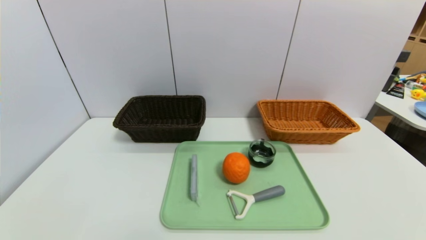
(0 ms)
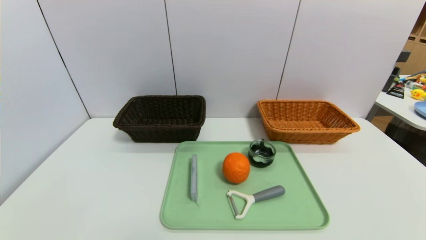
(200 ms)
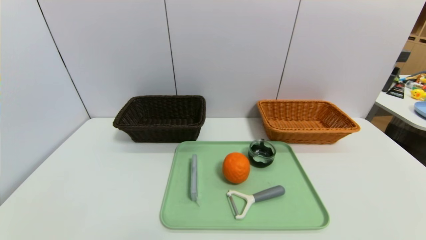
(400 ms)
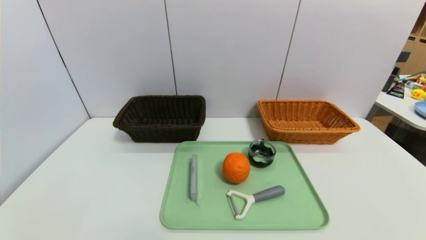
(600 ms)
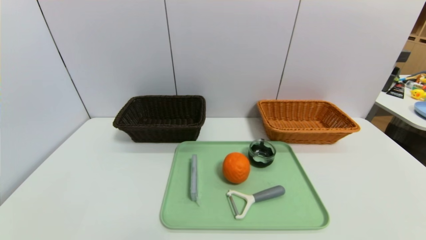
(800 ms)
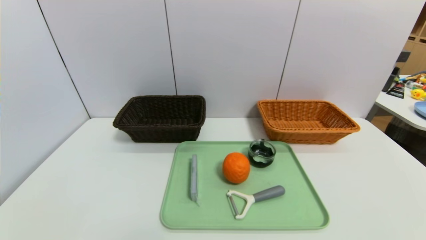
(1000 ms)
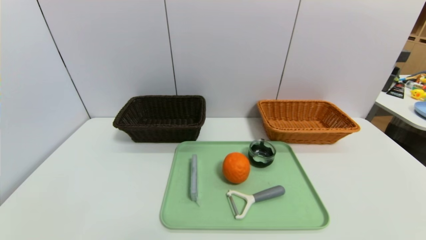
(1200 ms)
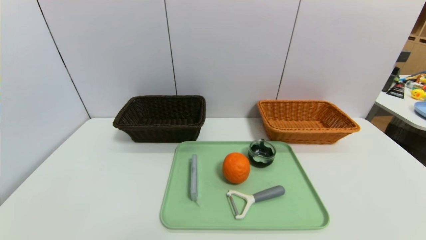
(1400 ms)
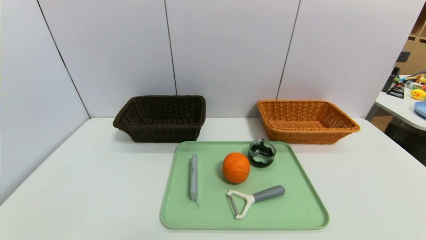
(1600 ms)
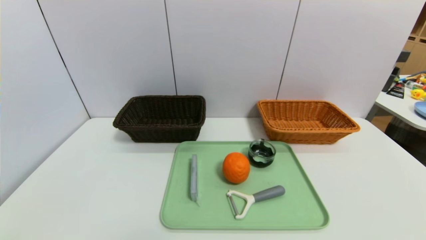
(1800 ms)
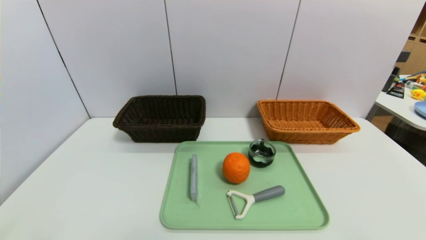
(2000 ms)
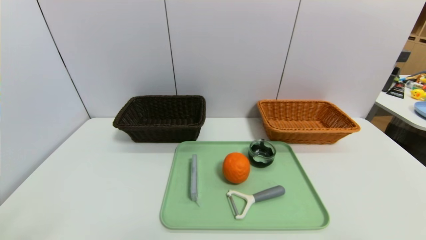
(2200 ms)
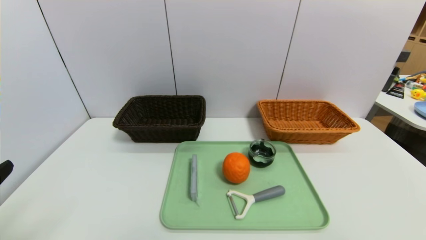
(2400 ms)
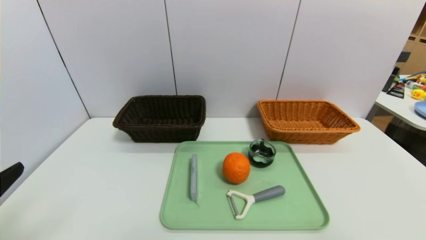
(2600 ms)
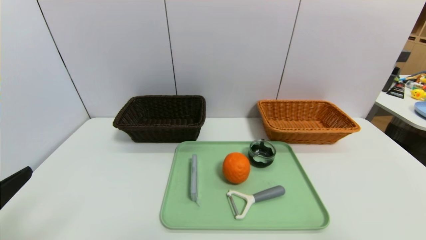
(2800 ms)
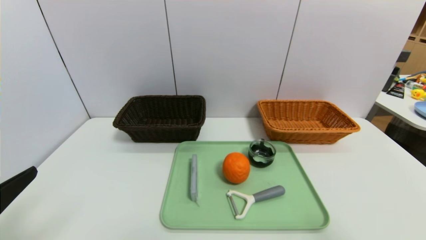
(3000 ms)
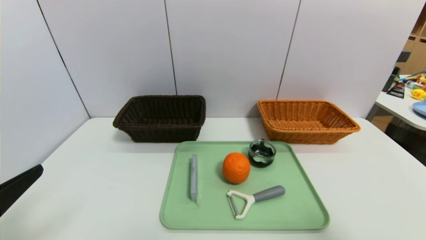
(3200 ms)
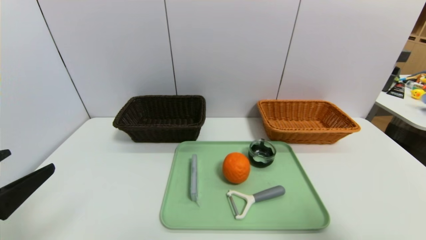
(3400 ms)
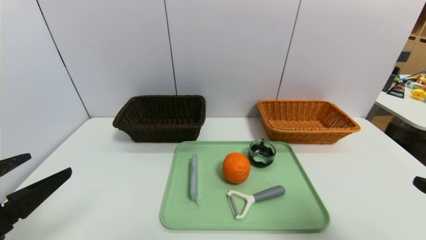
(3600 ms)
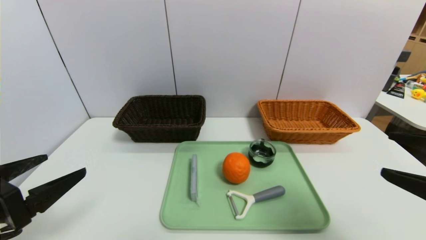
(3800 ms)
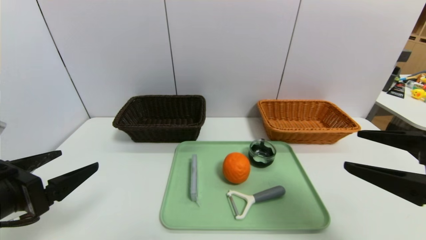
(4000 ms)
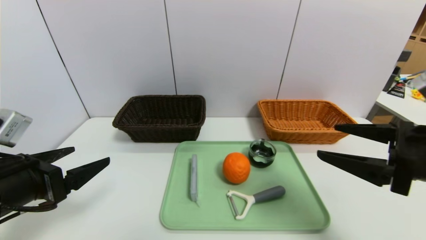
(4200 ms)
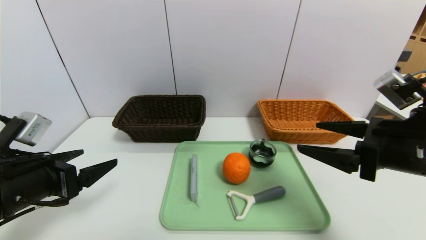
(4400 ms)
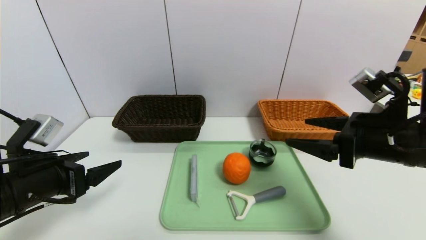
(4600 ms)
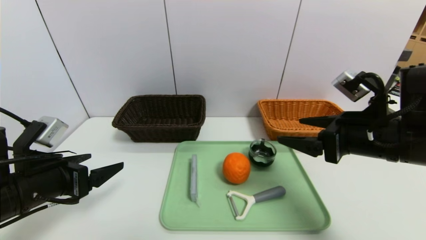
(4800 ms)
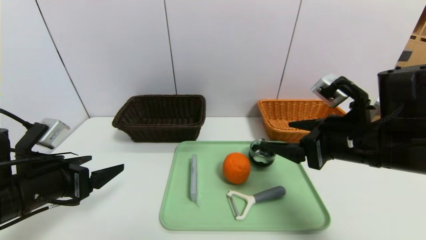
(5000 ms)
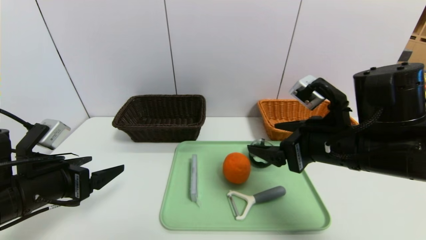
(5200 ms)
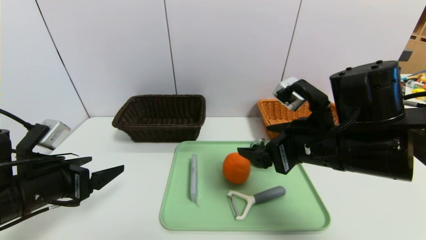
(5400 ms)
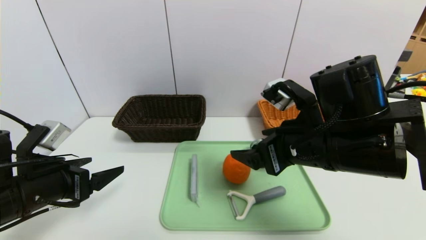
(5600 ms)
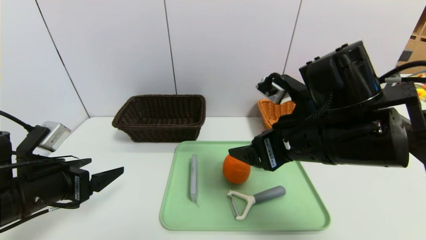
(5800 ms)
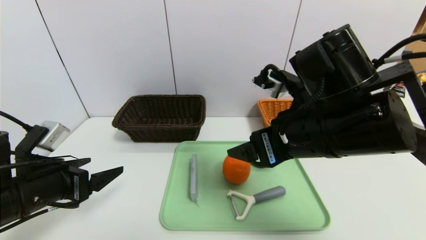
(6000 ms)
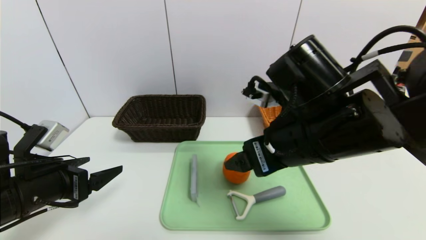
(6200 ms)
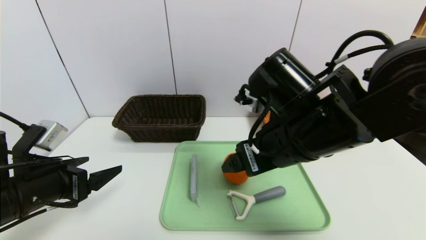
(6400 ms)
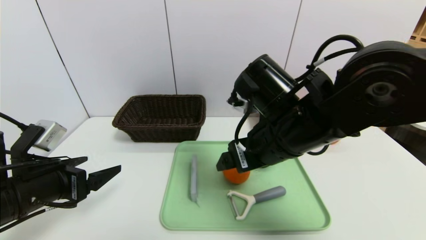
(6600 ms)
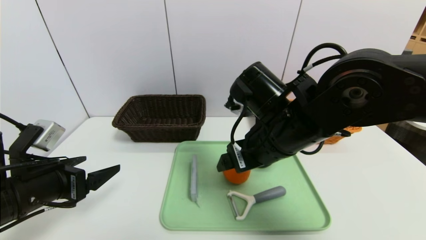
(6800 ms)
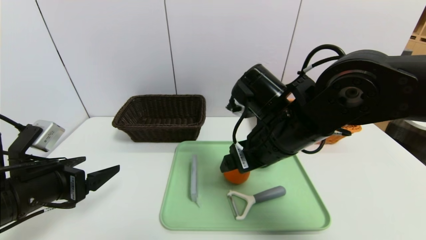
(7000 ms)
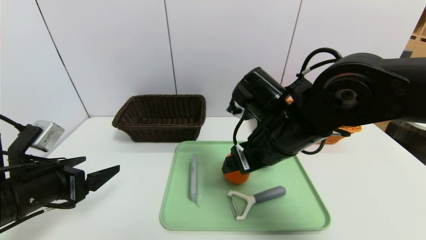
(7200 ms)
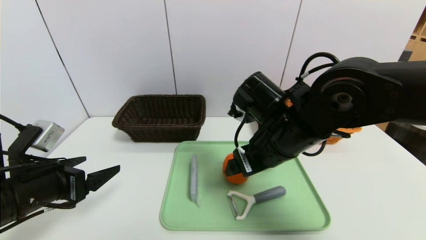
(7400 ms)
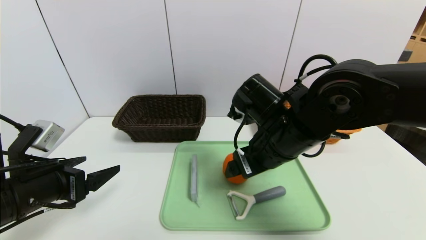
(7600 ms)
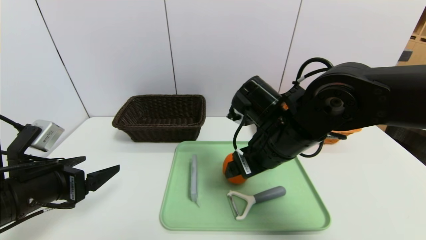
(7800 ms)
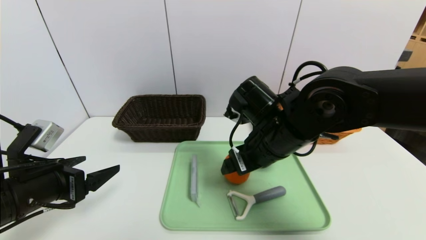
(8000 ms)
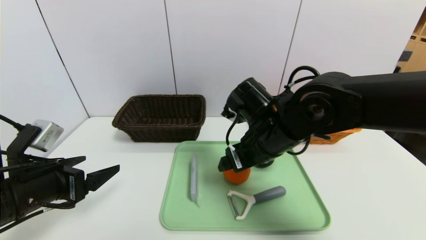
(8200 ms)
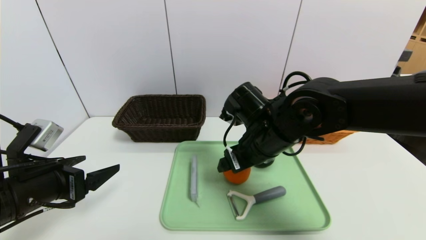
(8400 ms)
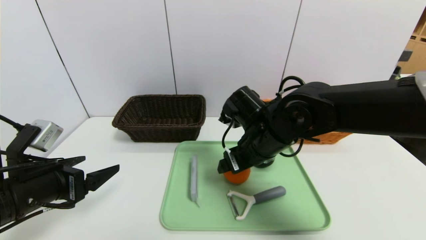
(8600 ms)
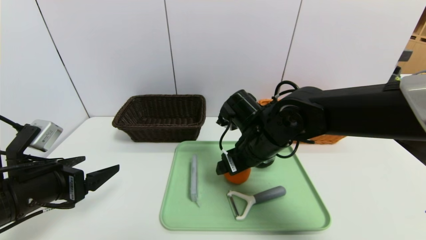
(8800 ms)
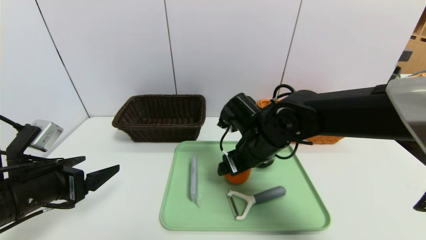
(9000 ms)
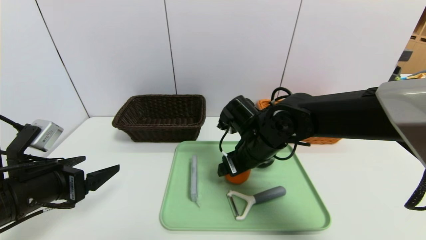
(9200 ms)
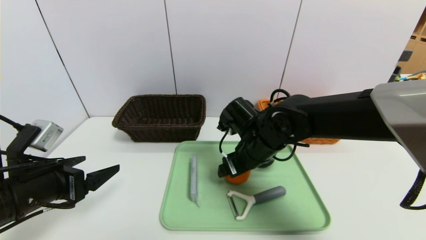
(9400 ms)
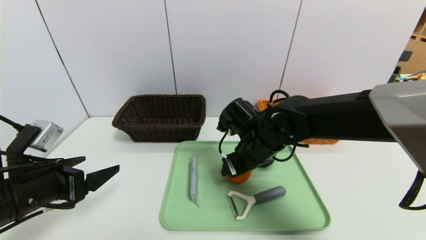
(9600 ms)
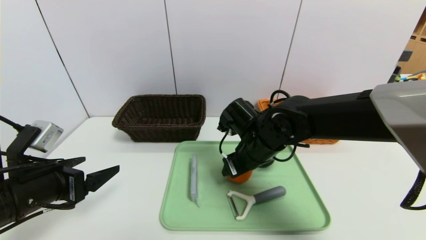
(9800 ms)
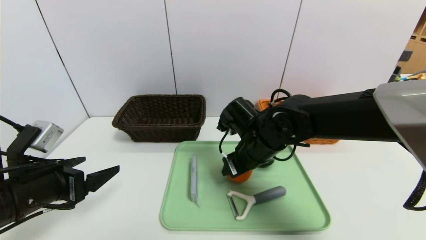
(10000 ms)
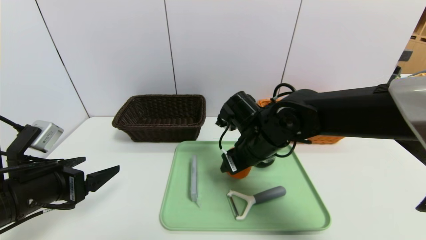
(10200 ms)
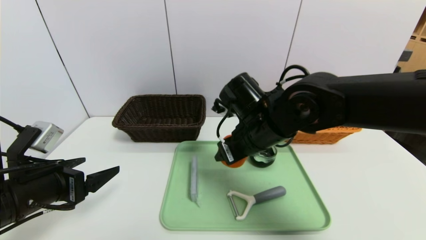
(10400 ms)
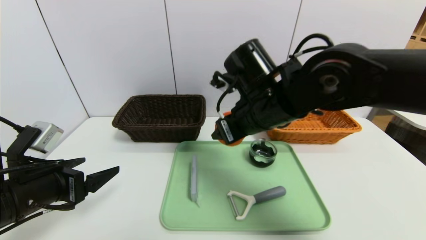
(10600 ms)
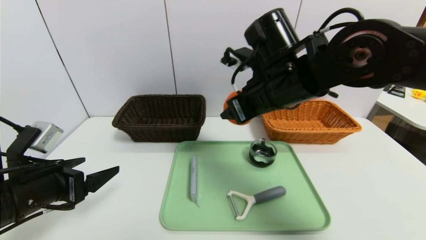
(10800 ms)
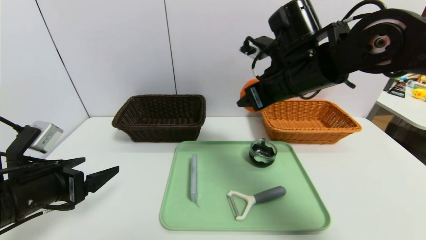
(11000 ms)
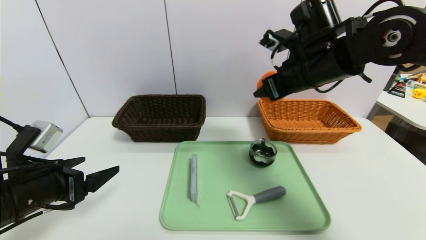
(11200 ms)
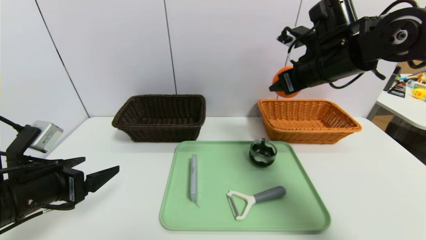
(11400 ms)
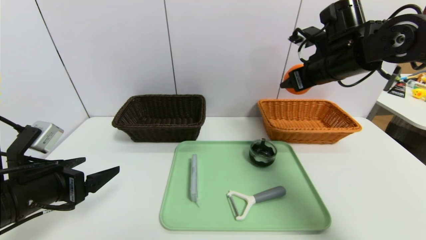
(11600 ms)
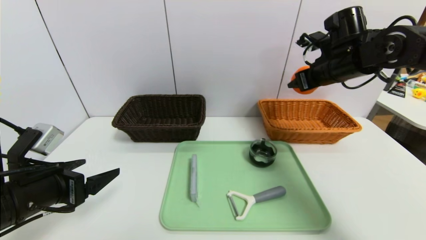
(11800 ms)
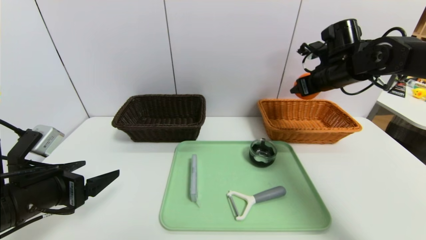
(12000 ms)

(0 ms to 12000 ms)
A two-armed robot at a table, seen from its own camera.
Task of the whole recording: place the food in the right basket with the right gripper, and place the non food items in the left basket with the left gripper.
1600 ms - 3000 ms: The left gripper heads upward and forward, covering approximately 15 cm.
3000 ms - 4400 ms: The two grippers go roughly 15 cm forward.
4400 ms - 6000 ms: The right gripper travels to the left by roughly 15 cm.
6000 ms - 7600 ms: The right gripper ends up about 5 cm from where it was.
7600 ms - 9000 ms: The right gripper travels downward by roughly 5 cm.
9000 ms - 10400 ms: The grippers move only a little.
10400 ms - 12000 ms: The right gripper shifts about 25 cm to the right and forward.

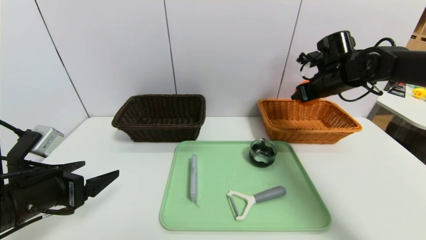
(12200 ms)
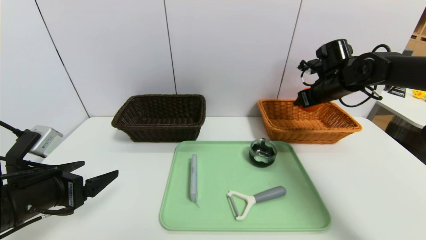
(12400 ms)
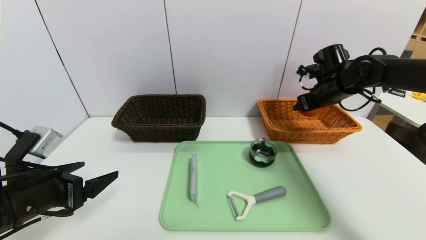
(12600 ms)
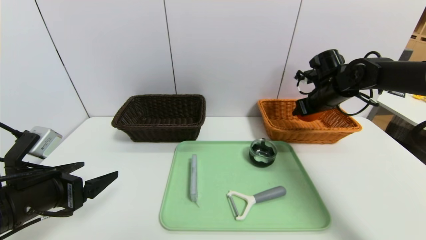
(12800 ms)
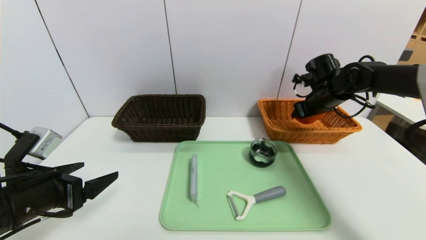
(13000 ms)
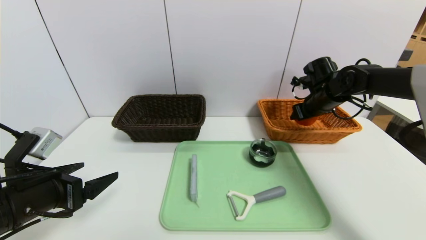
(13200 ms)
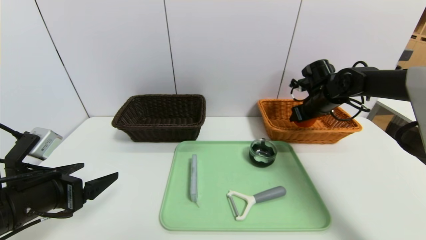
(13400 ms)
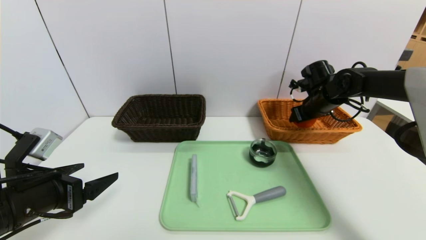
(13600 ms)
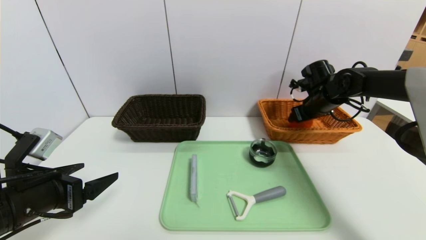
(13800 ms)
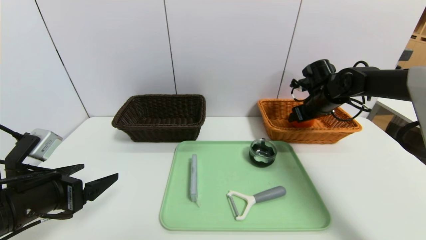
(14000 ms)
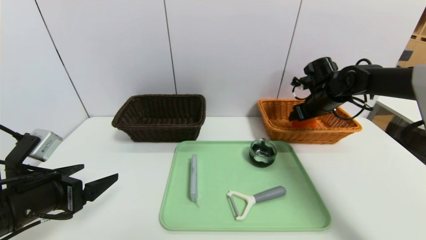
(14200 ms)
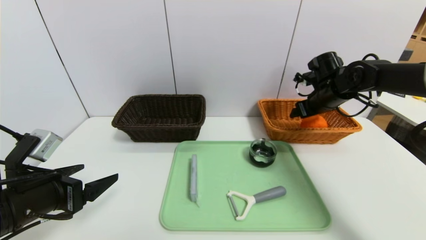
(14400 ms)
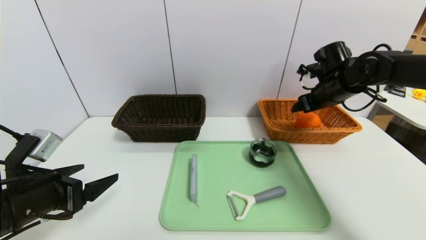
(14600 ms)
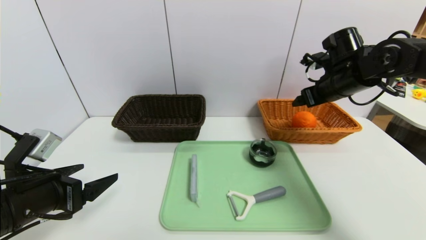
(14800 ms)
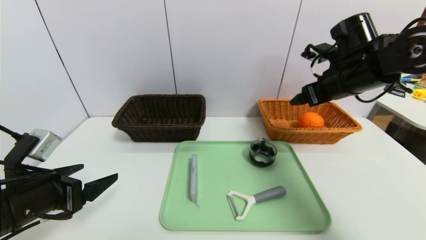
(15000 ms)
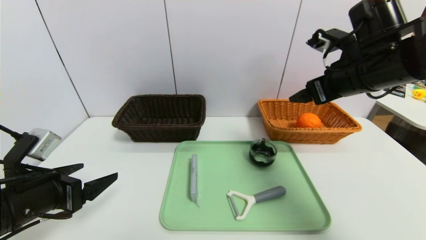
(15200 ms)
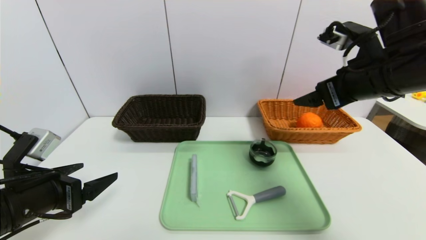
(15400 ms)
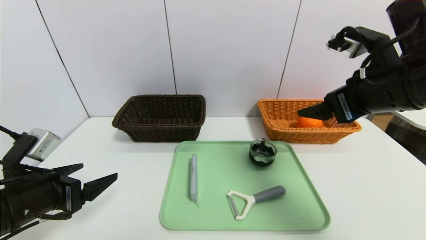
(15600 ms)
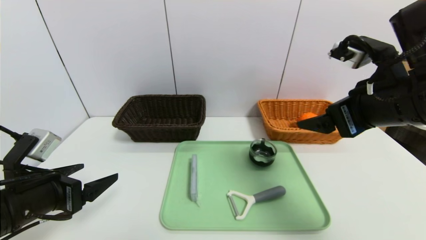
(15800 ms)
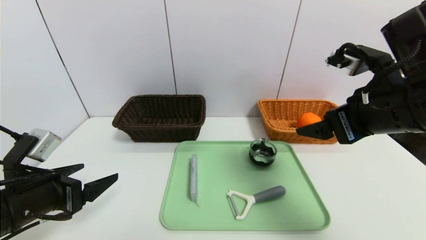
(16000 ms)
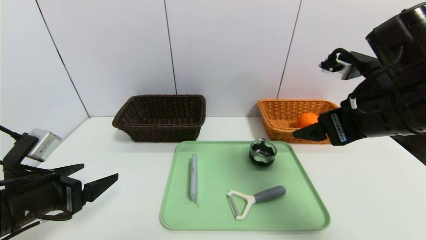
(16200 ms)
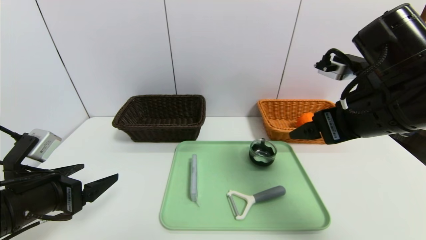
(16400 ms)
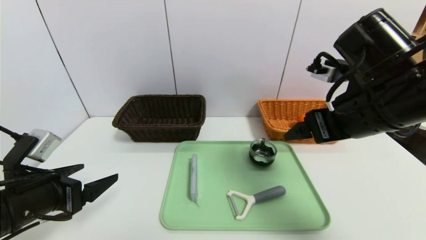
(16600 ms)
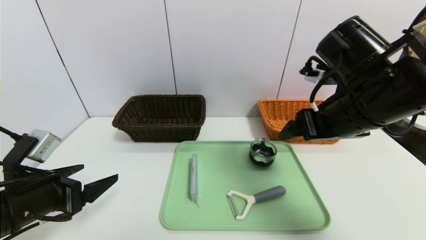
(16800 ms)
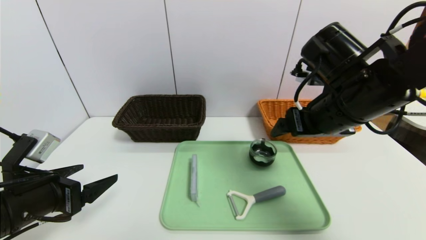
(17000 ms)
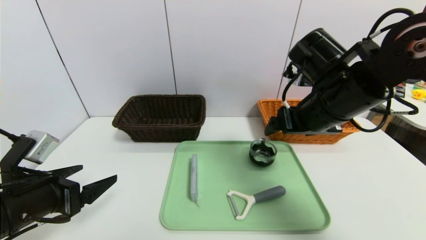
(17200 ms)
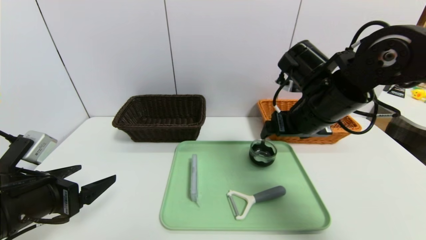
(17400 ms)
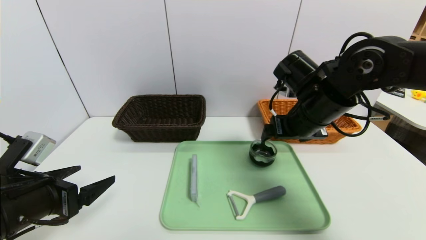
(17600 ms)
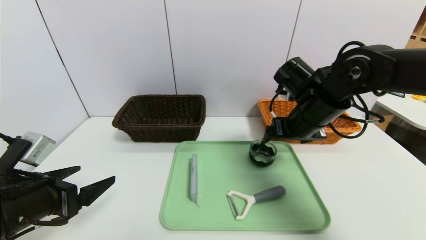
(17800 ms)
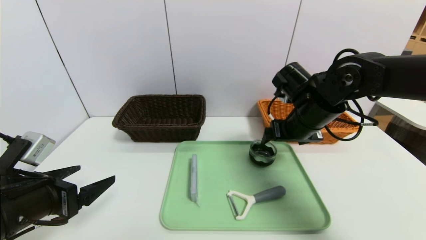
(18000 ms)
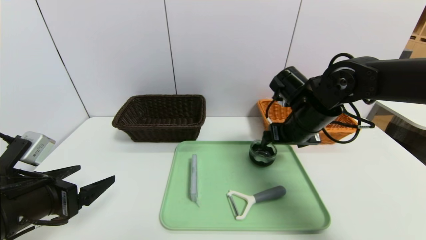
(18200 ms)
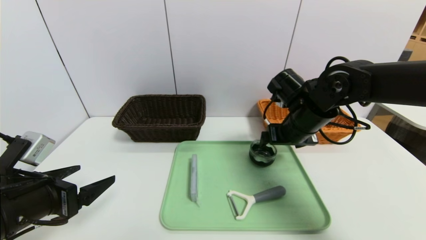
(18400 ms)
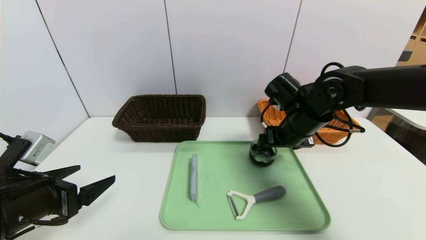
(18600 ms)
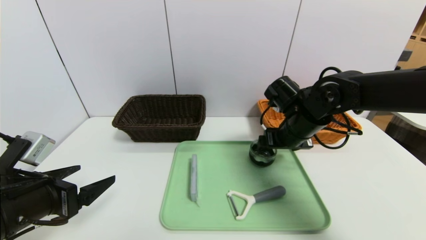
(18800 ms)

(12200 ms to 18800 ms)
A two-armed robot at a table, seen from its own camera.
Task of the whole recording: place the food in the right basket with the right gripper, and place the non food items in the left basket with the left gripper.
Step, 12200 ms - 14800 ms: Grasp the orange and put it in the right basket.
12200 ms - 13800 ms: The right gripper travels downward by about 5 cm.
13800 ms - 15400 ms: The right gripper moves backward and upward, roughly 20 cm.
15400 ms - 17200 ms: The right gripper shifts roughly 5 cm to the left.
17200 ms - 18800 ms: The right gripper goes roughly 10 cm downward and forward.
